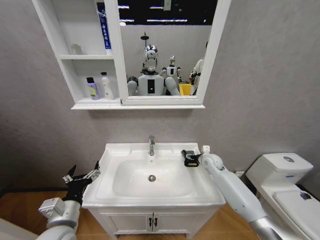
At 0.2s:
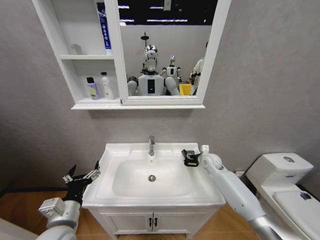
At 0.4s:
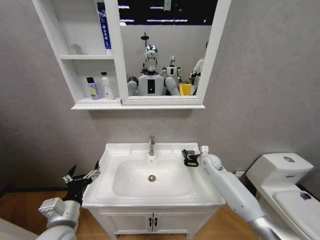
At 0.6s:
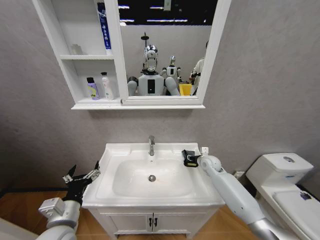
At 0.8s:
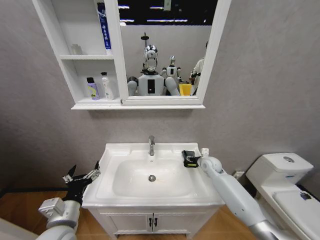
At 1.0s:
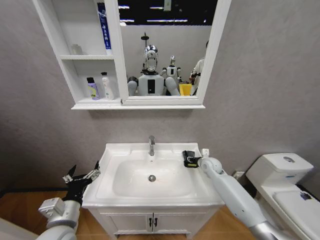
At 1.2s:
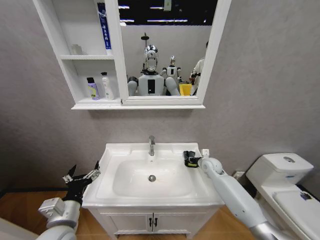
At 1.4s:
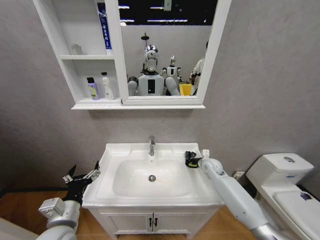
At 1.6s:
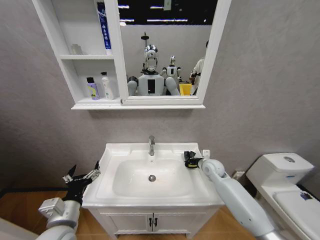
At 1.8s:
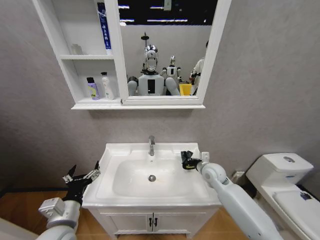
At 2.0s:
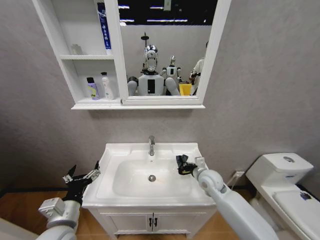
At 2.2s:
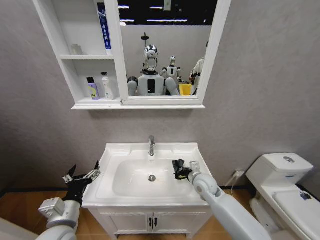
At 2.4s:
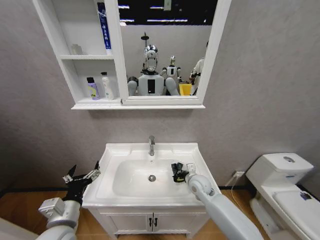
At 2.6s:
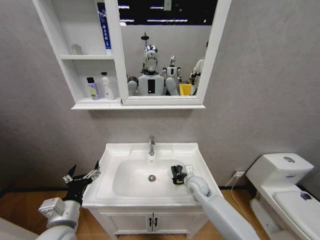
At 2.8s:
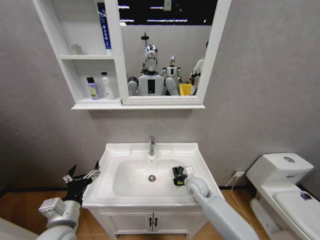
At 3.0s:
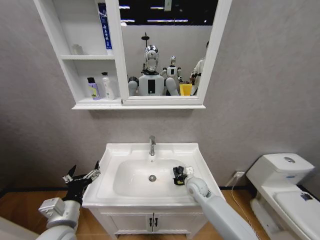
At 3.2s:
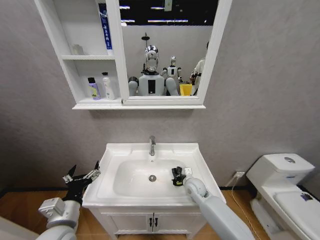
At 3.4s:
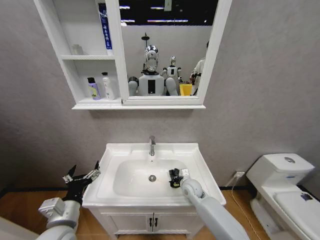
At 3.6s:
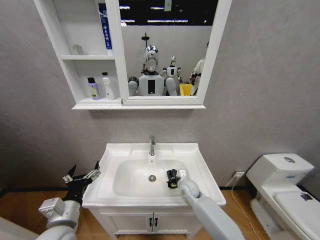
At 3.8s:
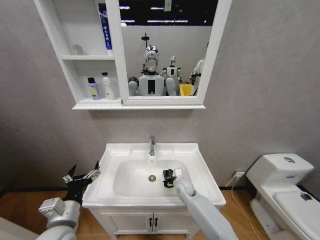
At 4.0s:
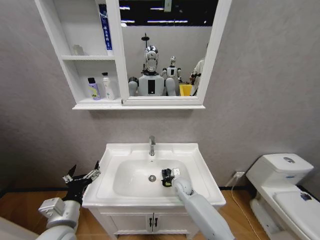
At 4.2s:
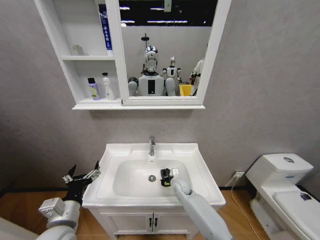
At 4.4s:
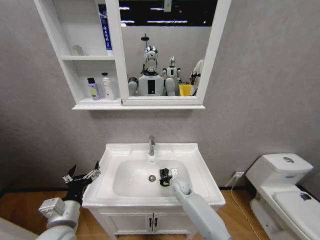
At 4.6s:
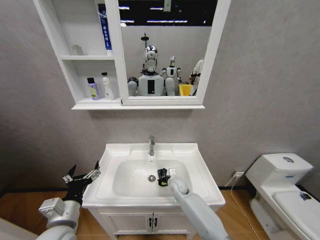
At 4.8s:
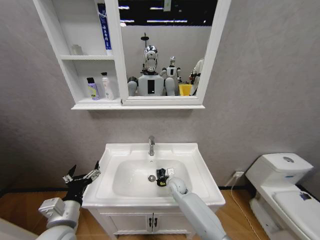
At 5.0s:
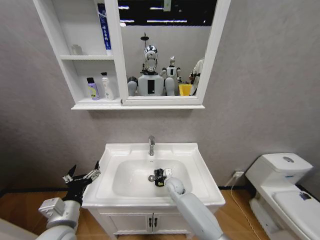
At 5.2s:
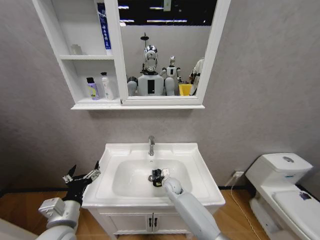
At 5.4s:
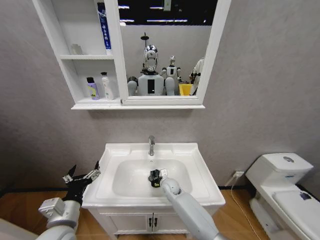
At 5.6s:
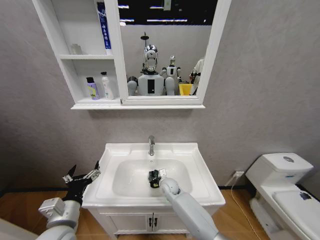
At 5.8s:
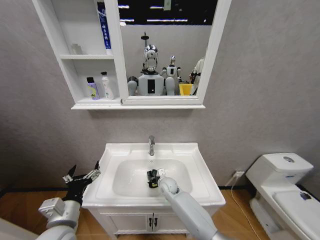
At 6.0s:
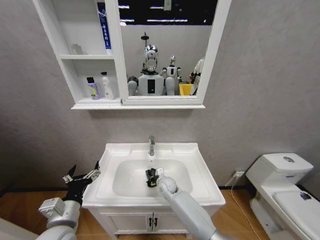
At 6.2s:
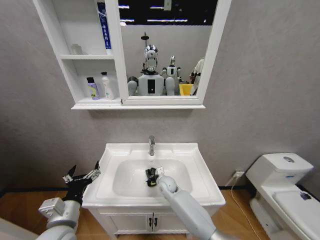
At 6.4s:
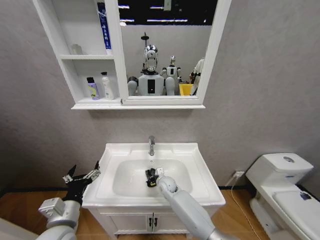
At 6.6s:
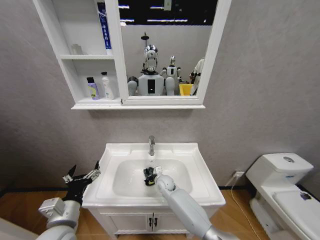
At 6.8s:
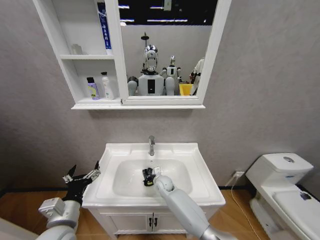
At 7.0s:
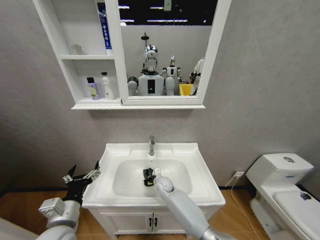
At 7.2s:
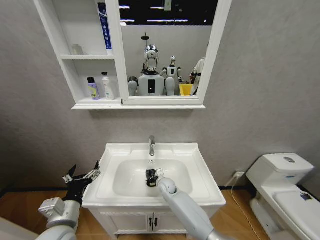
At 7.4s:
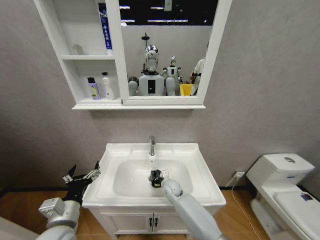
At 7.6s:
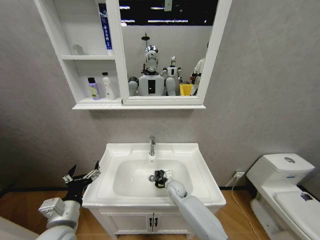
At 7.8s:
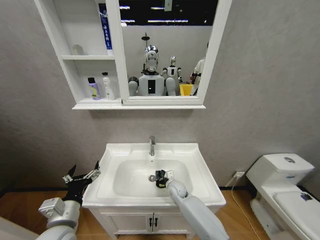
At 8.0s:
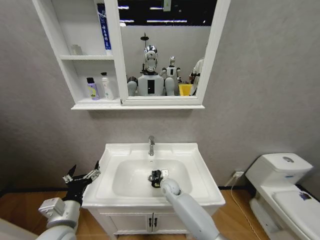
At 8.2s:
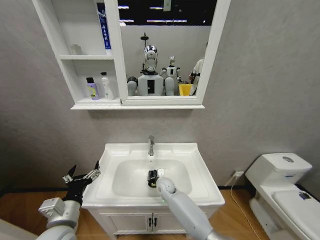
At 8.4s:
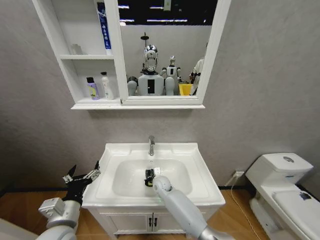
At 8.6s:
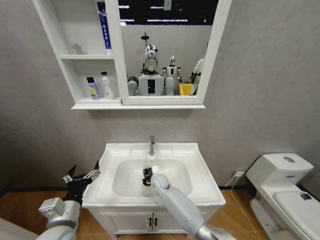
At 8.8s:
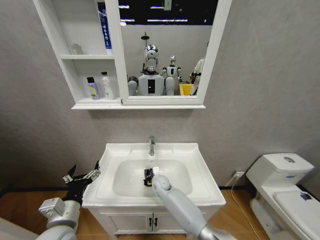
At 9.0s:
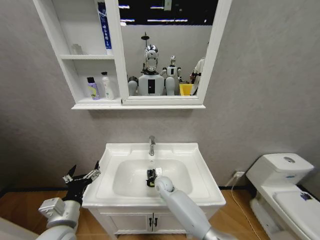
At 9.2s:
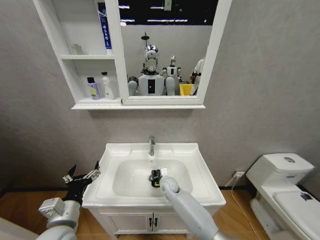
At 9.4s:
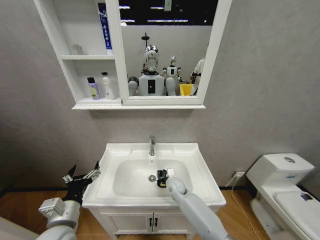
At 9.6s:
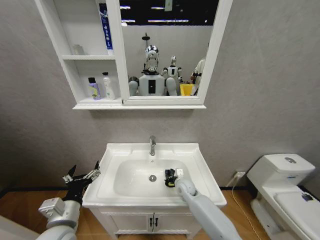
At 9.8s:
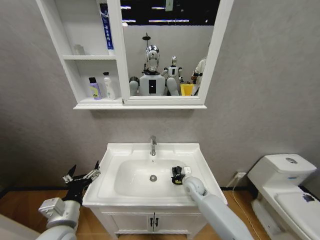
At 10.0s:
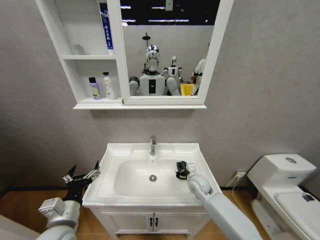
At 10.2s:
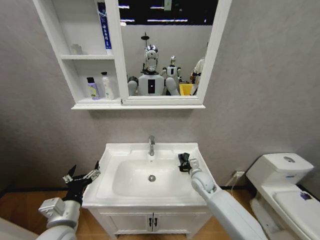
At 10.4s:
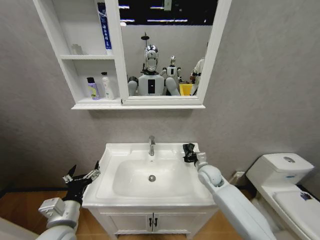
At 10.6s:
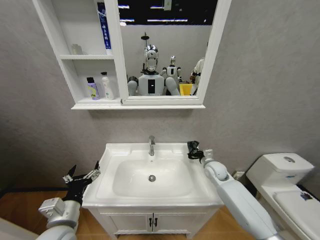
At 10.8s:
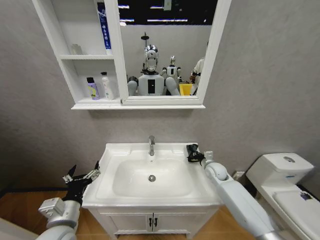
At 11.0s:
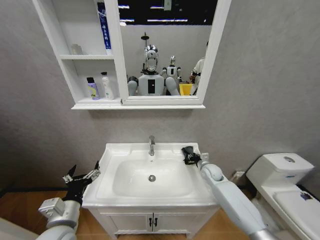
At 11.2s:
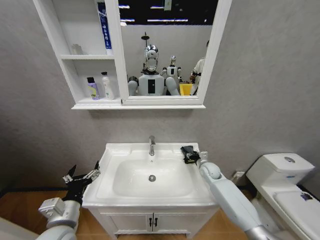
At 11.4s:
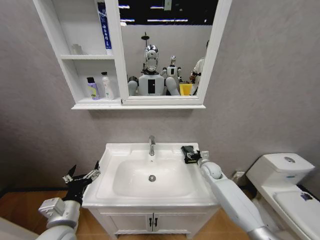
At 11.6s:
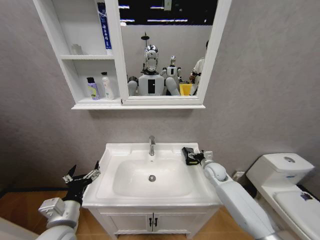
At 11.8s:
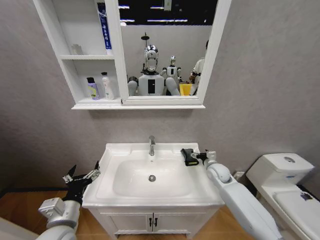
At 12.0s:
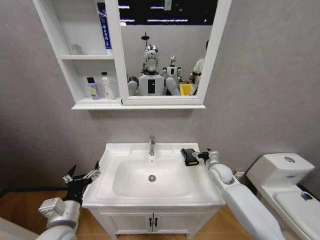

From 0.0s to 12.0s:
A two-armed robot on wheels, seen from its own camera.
Task of the whole recording: Move facial cleanser and shampoo from washbasin to cabinet, then wipe washbasin with towel.
From 0.0s to 1.6s: The right gripper closes.
From 1.6s to 3.0s: The right gripper goes approximately 15 cm to the left, backward and downward.
From 3.0s to 4.4s: The right gripper moves to the left and downward, some 10 cm.
From 4.4s to 6.0s: The right gripper shifts about 5 cm to the left.
From 6.0s to 7.6s: The right gripper moves about 5 cm.
From 7.6s to 9.0s: The right gripper heads to the left, covering roughly 5 cm.
From 9.0s to 10.4s: The right gripper shifts some 25 cm to the right and upward.
From 10.4s to 12.0s: The right gripper travels to the right by about 5 cm, and opens up.

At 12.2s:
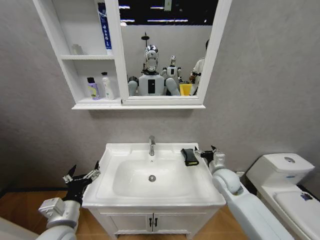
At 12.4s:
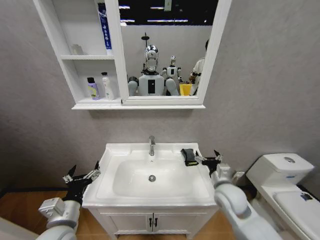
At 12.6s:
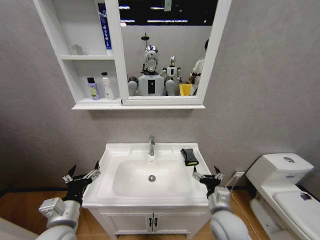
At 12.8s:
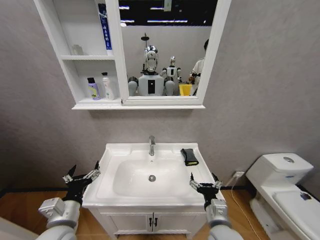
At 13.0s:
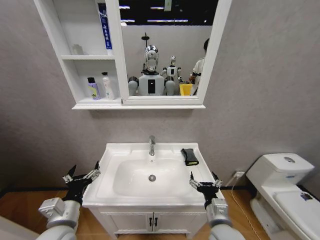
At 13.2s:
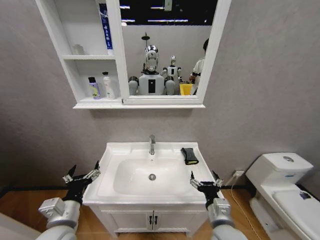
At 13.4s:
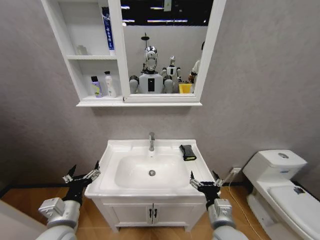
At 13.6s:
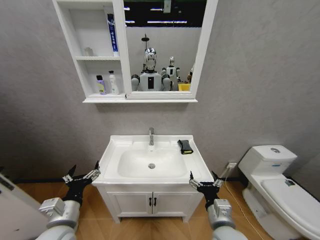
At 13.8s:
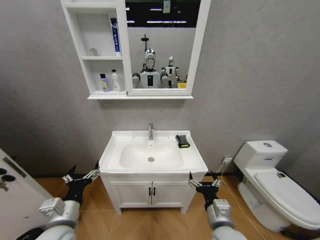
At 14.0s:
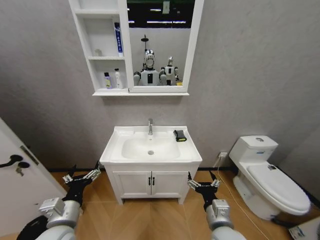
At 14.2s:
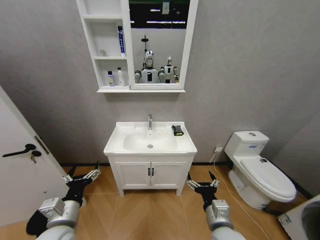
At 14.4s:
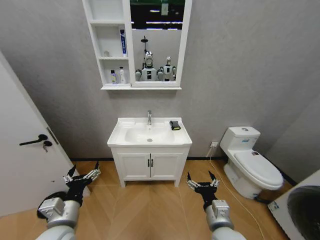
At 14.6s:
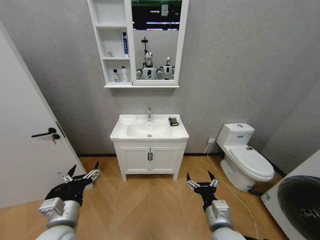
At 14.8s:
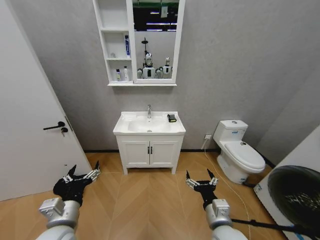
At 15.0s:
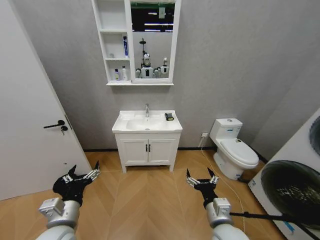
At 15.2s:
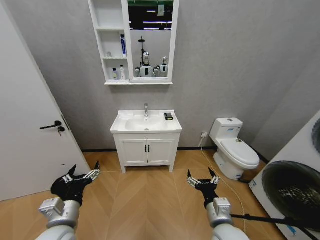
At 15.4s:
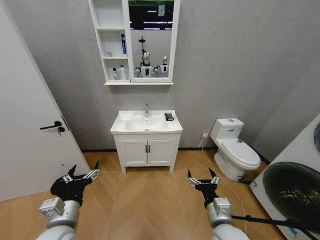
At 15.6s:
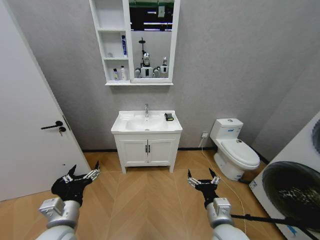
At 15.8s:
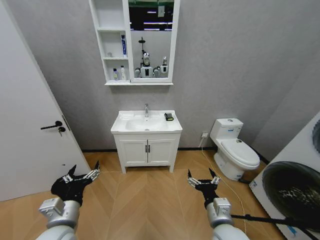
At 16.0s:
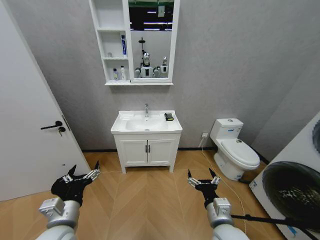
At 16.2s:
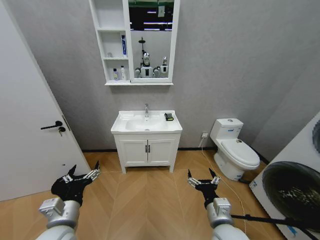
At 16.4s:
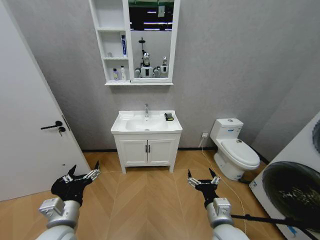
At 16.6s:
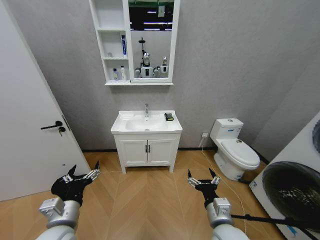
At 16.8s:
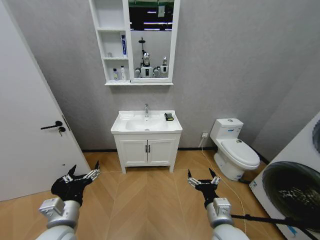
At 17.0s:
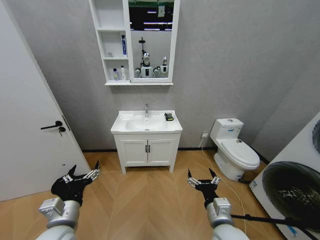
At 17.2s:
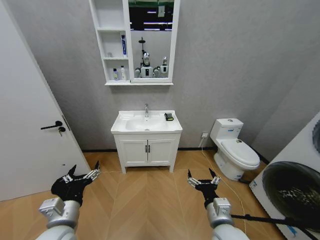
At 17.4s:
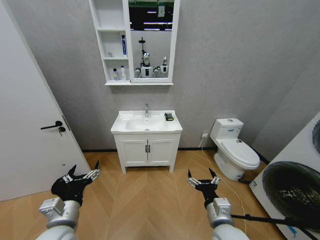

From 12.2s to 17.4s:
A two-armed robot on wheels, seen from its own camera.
Task of the whole recording: Move facial cleanser and shampoo from washbasin to cabinet, then wipe washbasin with towel.
From 12.2s to 14.0s: The right gripper moves backward and to the left, some 20 cm.
From 15.6s to 17.4s: Neither gripper changes place.

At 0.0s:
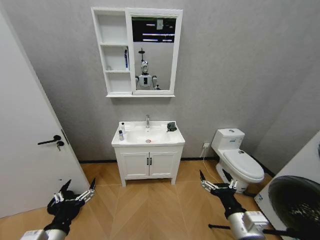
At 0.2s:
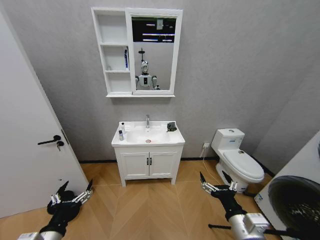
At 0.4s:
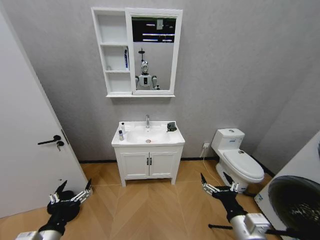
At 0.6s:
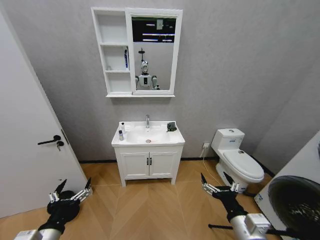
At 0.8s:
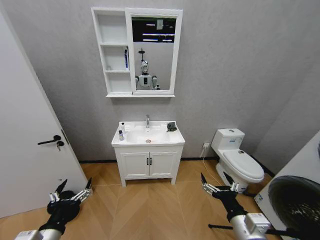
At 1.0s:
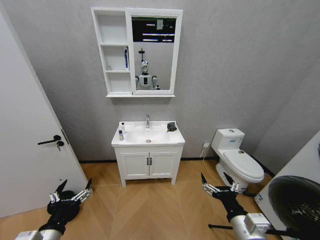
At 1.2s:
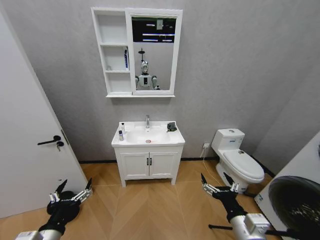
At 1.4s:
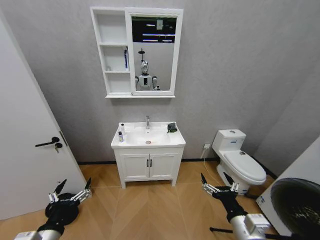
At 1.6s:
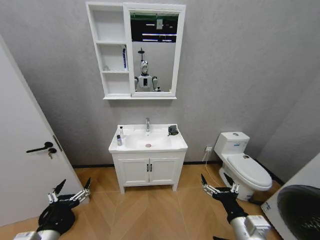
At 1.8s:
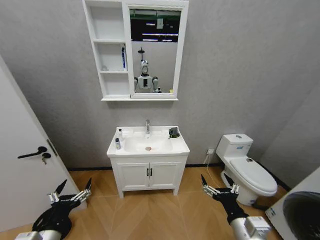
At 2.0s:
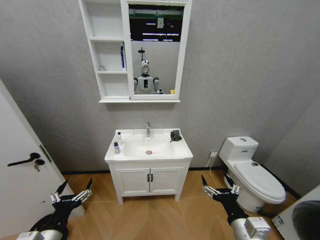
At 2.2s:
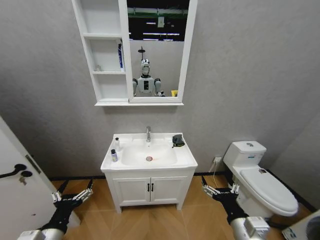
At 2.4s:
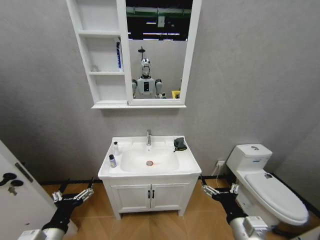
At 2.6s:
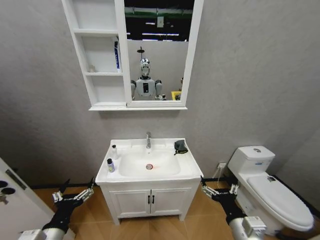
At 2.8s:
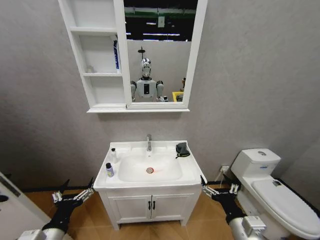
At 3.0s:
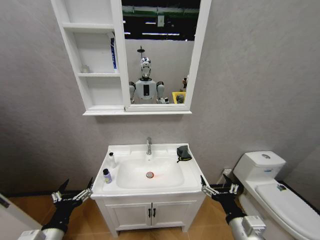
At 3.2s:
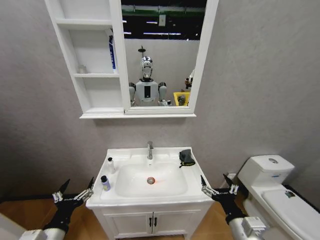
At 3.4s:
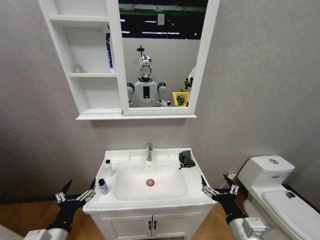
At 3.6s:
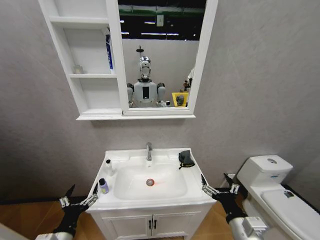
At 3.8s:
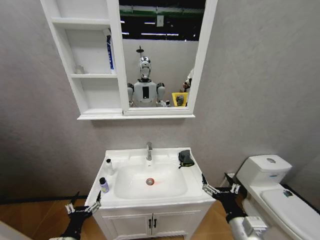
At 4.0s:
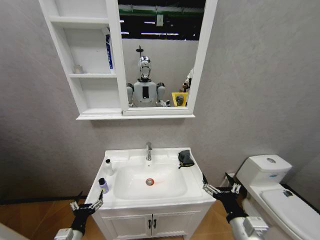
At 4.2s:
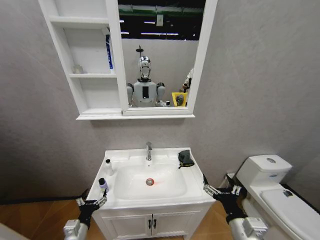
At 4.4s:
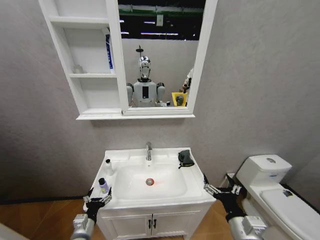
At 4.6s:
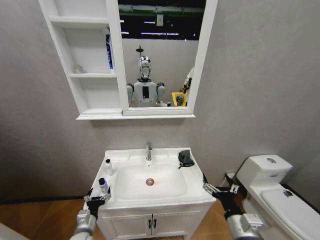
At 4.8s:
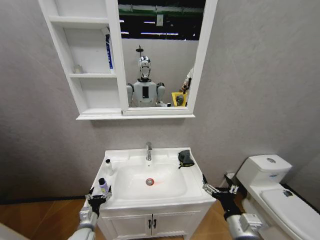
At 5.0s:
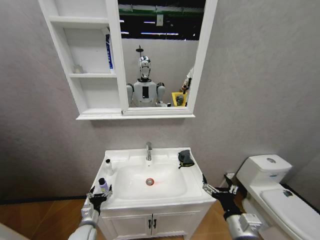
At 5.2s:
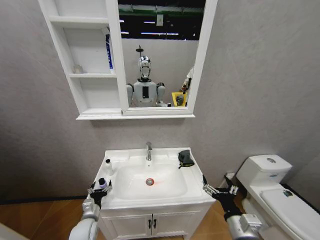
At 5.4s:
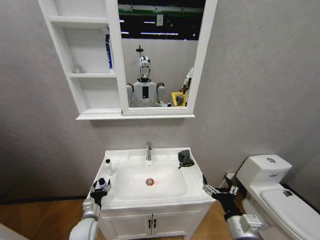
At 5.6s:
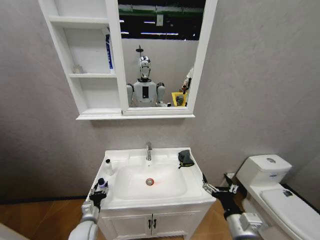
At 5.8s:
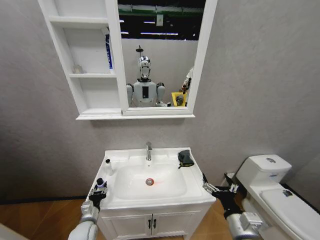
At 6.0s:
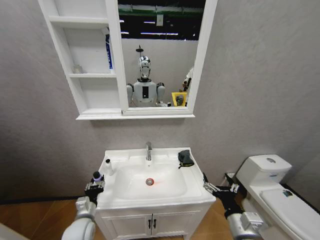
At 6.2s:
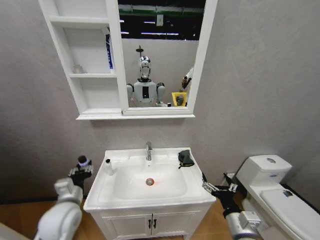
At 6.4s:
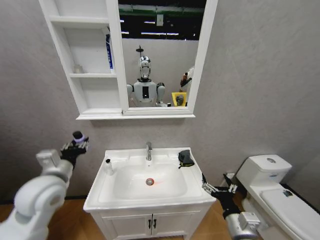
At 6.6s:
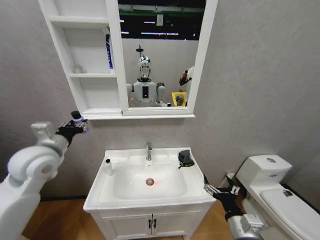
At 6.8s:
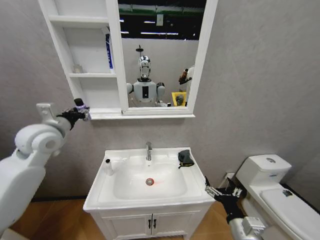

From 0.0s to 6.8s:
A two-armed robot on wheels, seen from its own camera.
Task of the whole recording: Move facial cleanser and shampoo from washbasin to cabinet, then wipe washbasin with towel.
From 2.8s to 4.0s: The left gripper heads downward, covering approximately 10 cm.
From 4.0s to 5.4s: The left gripper heads forward, covering some 10 cm.
From 5.4s to 6.8s: The left gripper travels upward by some 40 cm, and closes its fingers.
